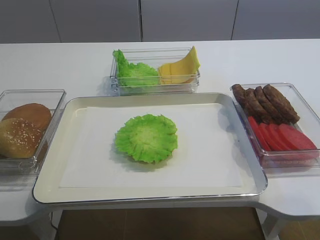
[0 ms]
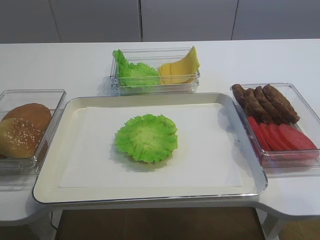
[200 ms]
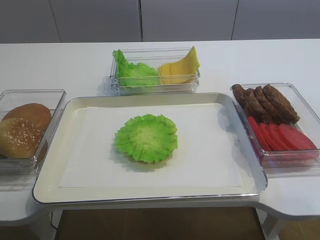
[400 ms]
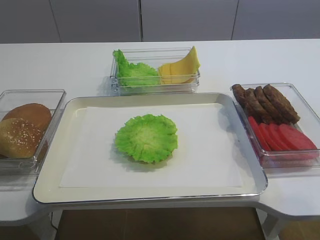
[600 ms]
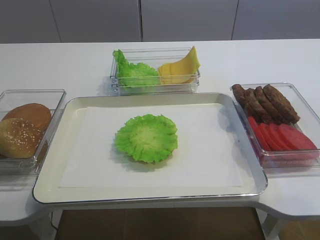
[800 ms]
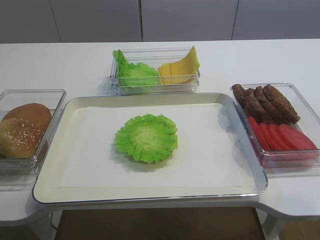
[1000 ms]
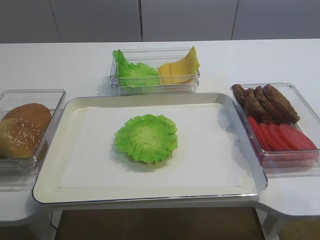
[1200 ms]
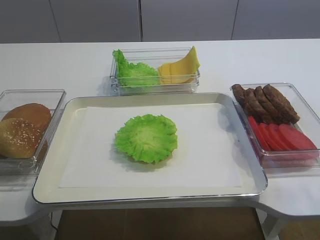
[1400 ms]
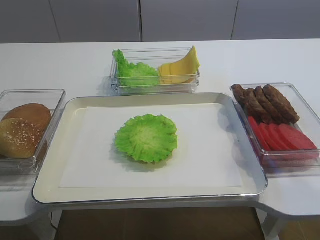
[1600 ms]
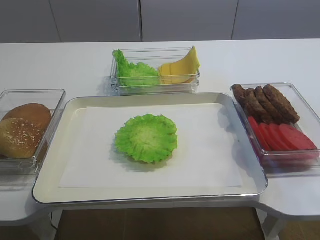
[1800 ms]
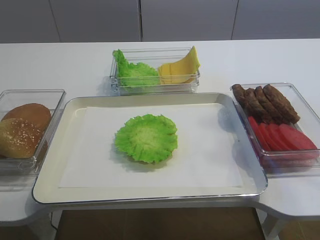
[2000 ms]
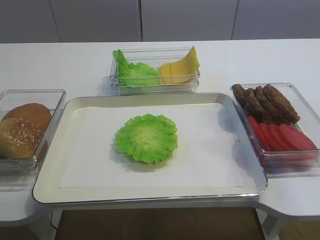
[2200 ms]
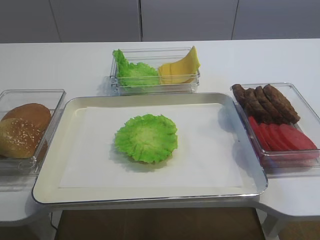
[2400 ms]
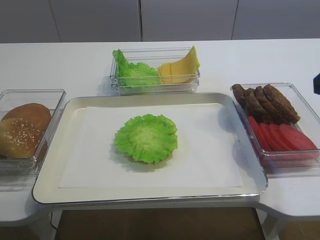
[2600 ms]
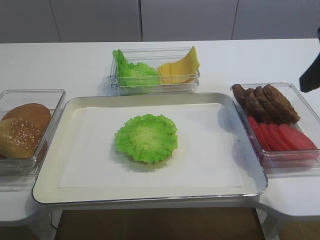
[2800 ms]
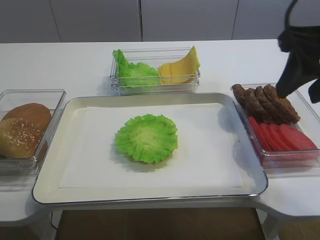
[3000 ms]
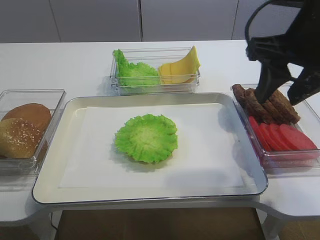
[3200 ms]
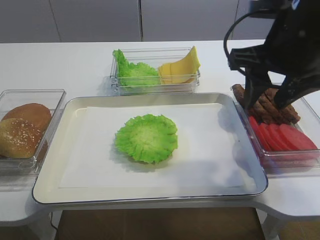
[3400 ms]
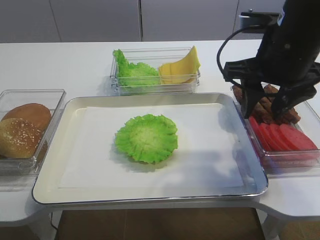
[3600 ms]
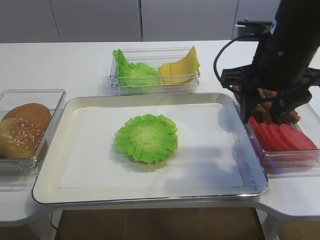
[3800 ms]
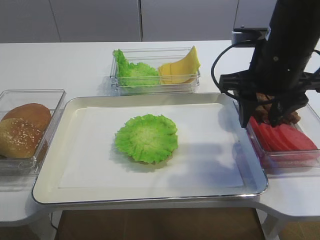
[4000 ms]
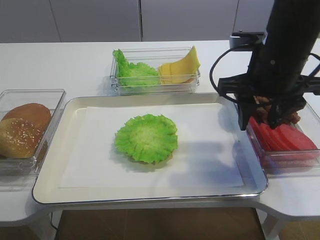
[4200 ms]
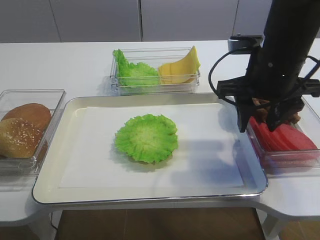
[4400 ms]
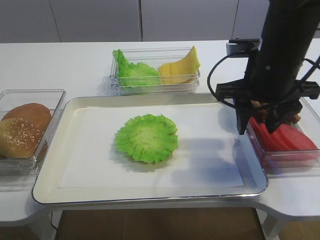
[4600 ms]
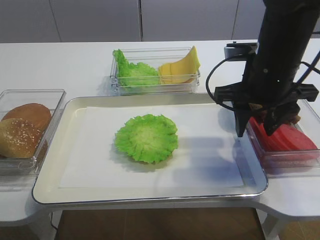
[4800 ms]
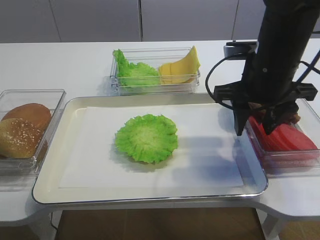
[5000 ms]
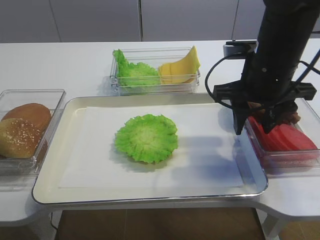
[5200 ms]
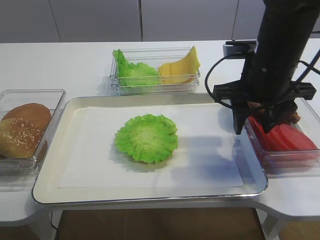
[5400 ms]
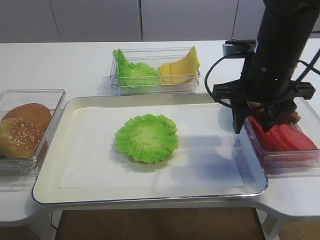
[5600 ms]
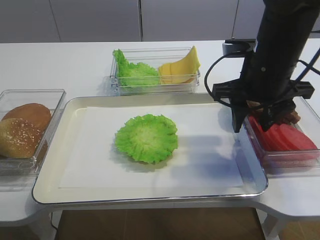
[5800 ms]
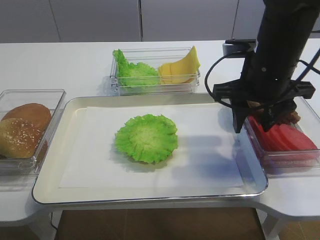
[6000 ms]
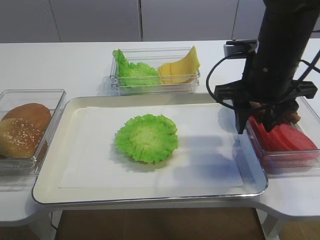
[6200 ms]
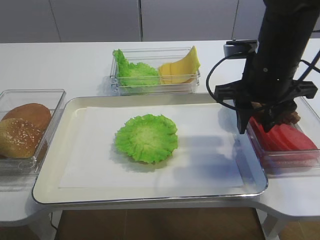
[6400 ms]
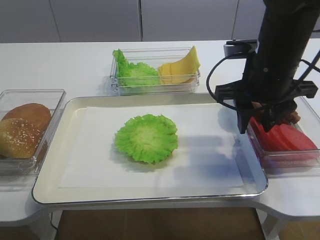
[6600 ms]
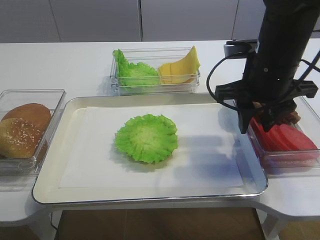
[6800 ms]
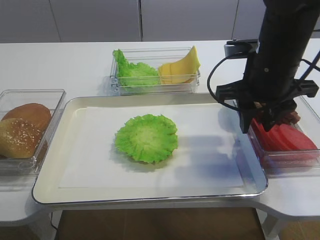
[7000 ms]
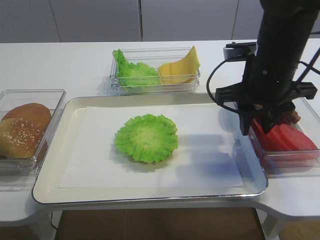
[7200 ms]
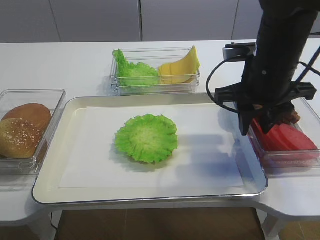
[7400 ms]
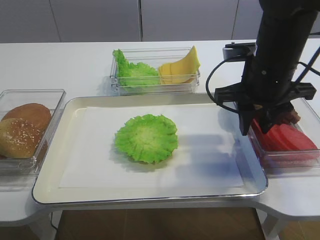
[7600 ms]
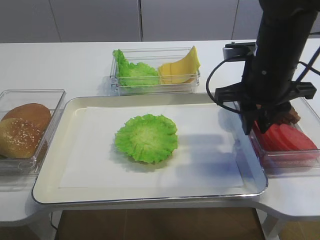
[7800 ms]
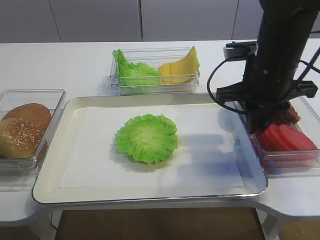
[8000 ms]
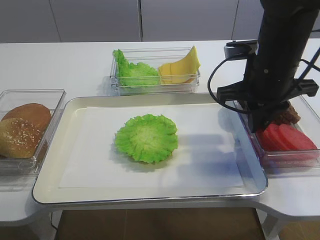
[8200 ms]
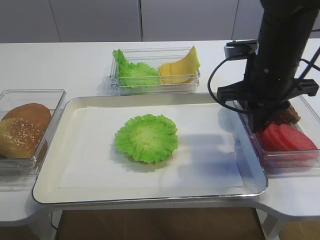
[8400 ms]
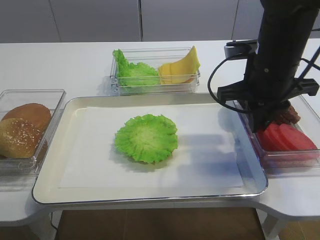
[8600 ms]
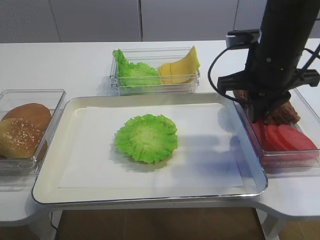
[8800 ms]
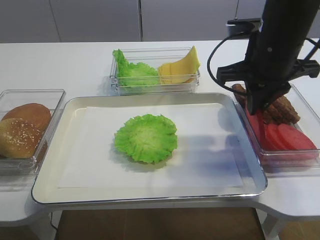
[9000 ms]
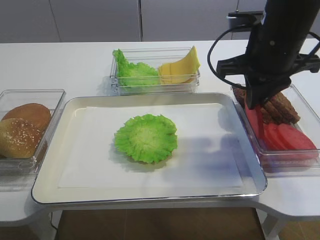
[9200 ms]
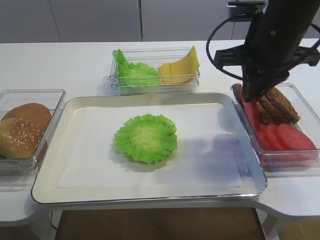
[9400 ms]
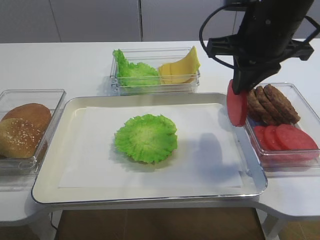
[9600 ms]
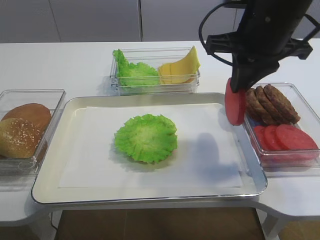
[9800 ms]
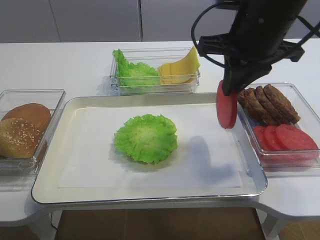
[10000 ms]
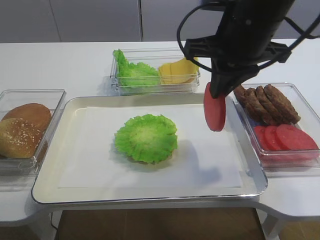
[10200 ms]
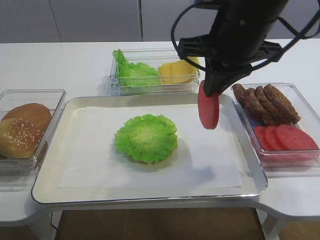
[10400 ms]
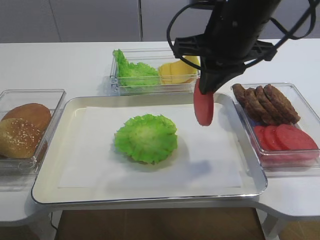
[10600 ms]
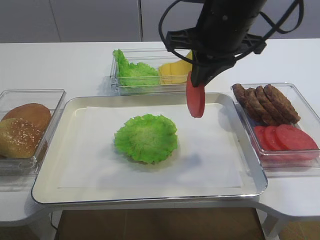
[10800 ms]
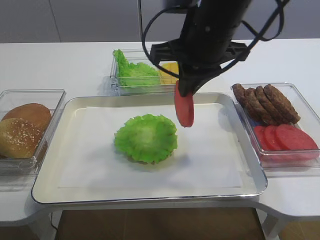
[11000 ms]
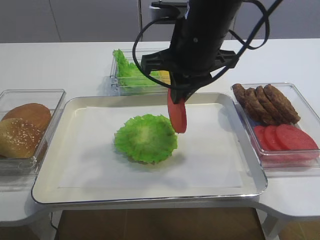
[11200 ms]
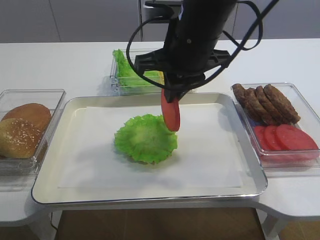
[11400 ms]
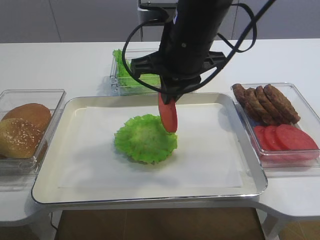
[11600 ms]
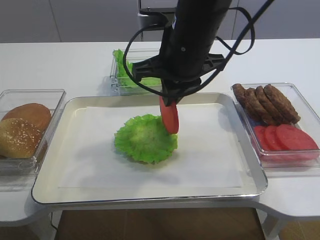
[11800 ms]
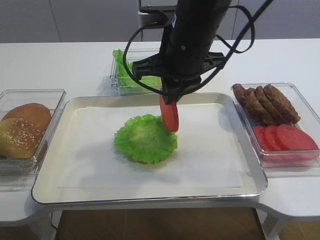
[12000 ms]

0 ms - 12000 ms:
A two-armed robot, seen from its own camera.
Step, 0 ms - 9400 ms: Pick up the tomato slice with the right gripper.
1600 ms - 3000 ms: The right gripper is displaced forward by some 20 cm.
3000 ms - 4400 ms: The right gripper travels downward, forward and to the left by about 10 cm.
4400 ms - 6000 ms: Neither gripper changes place.
6000 ms - 7600 ms: Both grippers stay put.
7600 ms - 9000 ms: The right gripper closes.
9000 ms - 10400 ms: The right gripper shifts by about 5 cm.
10400 ms - 12000 ms: The right gripper goes about 5 cm to the left.

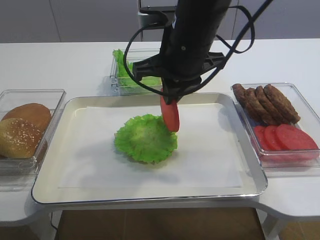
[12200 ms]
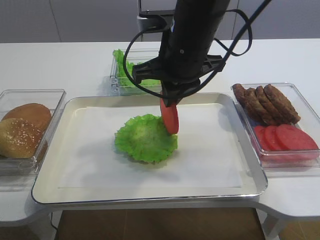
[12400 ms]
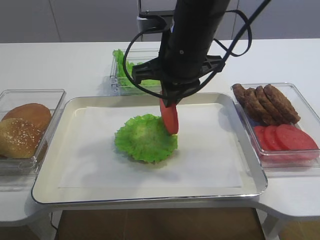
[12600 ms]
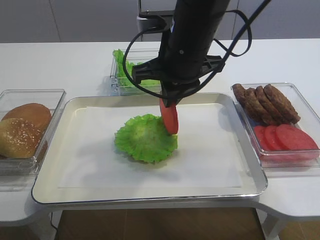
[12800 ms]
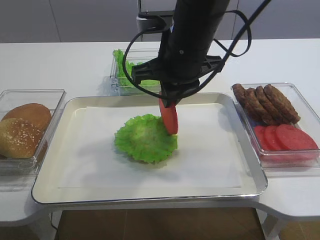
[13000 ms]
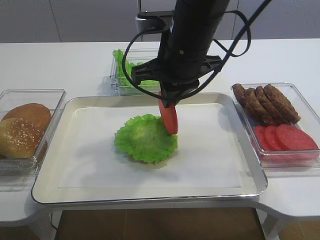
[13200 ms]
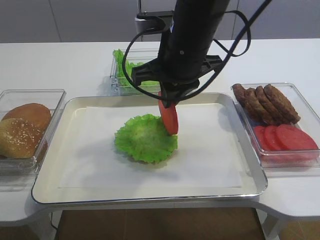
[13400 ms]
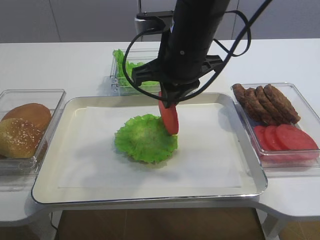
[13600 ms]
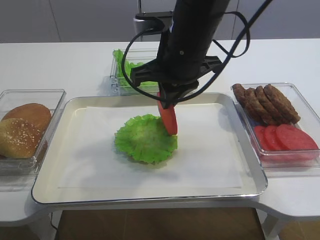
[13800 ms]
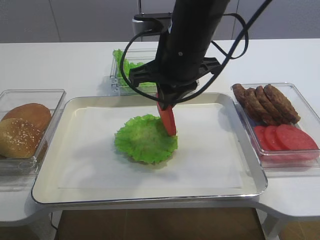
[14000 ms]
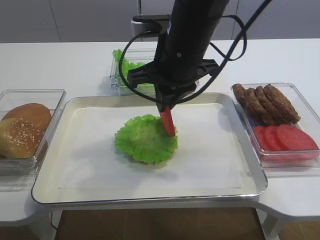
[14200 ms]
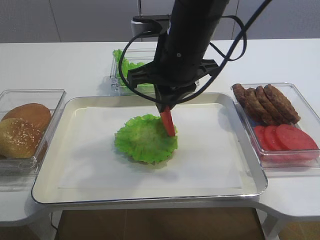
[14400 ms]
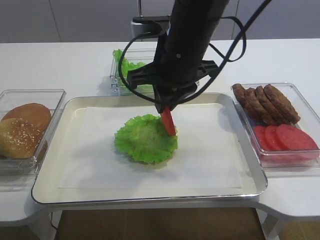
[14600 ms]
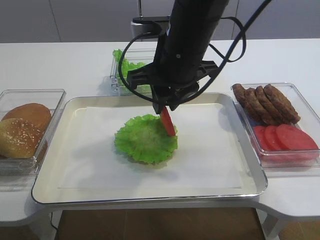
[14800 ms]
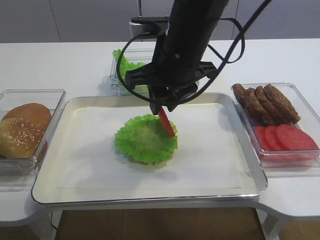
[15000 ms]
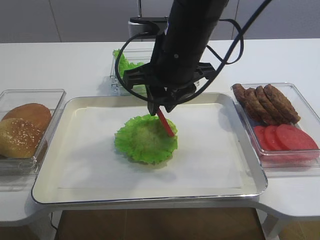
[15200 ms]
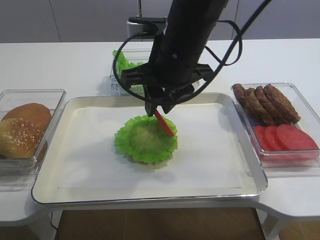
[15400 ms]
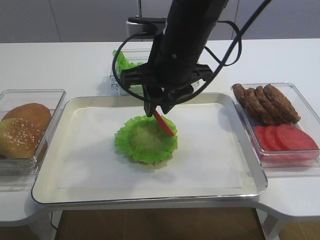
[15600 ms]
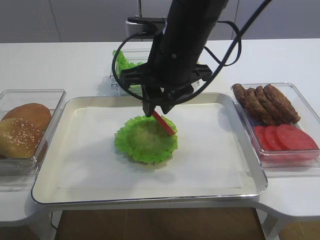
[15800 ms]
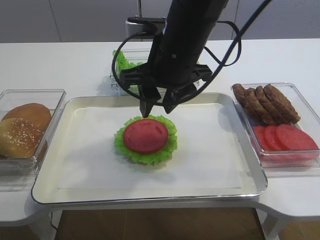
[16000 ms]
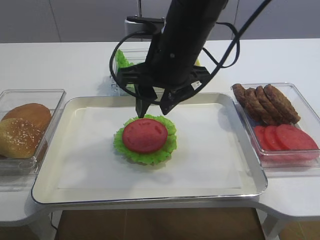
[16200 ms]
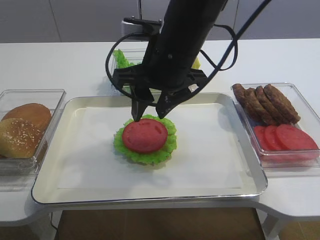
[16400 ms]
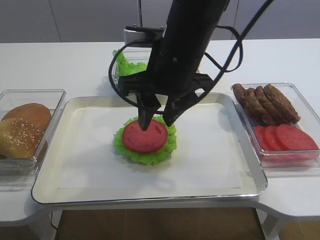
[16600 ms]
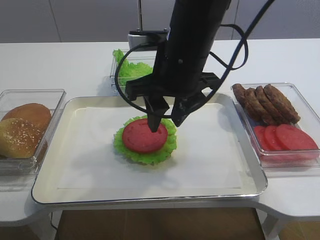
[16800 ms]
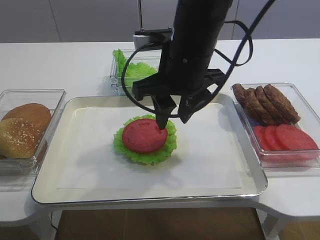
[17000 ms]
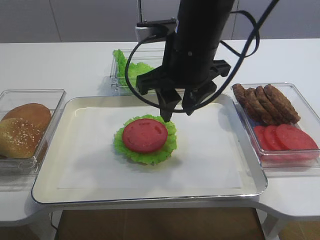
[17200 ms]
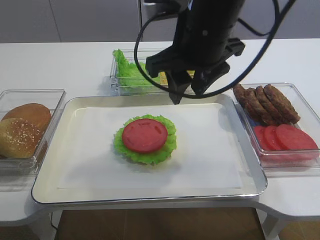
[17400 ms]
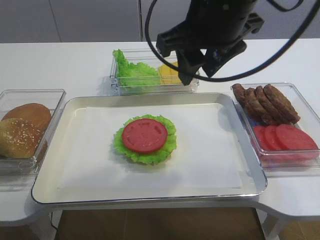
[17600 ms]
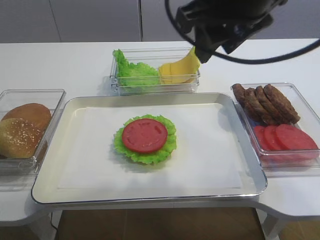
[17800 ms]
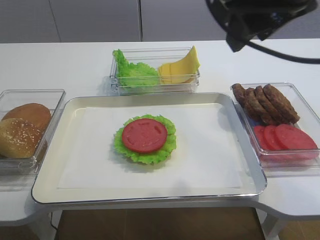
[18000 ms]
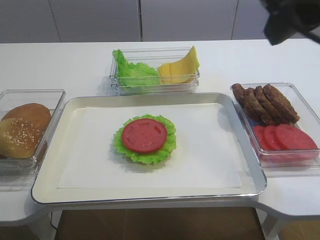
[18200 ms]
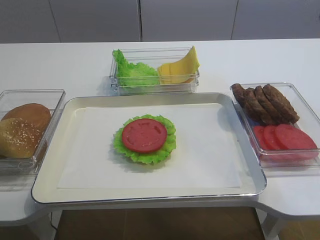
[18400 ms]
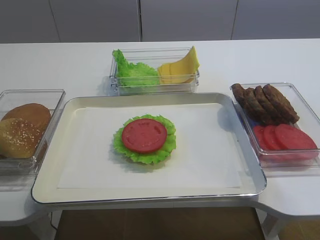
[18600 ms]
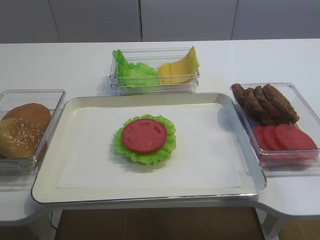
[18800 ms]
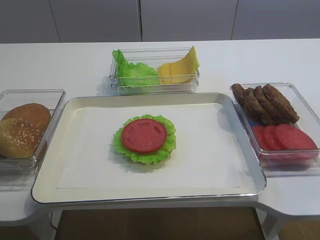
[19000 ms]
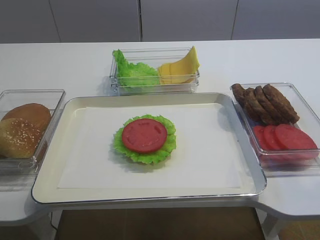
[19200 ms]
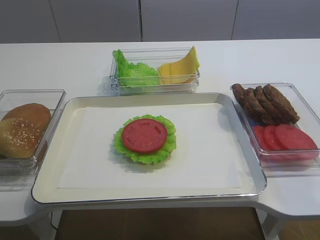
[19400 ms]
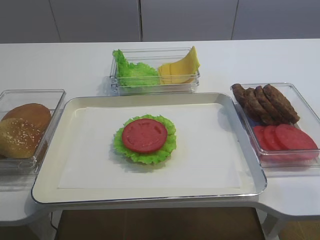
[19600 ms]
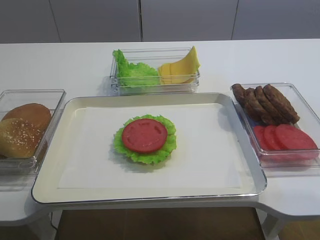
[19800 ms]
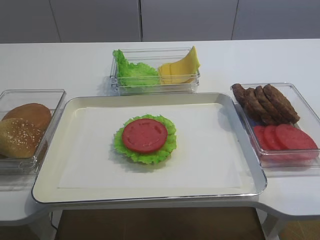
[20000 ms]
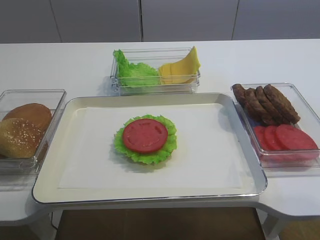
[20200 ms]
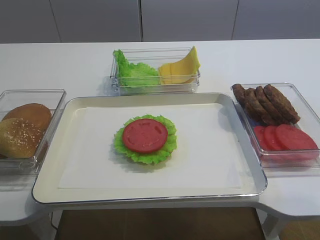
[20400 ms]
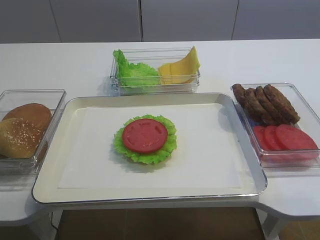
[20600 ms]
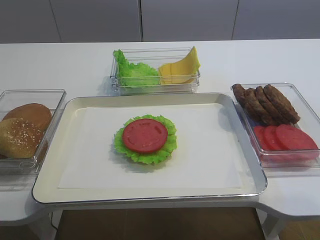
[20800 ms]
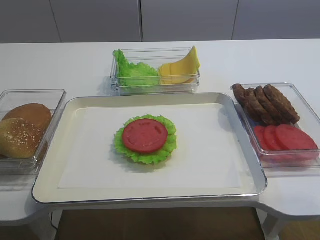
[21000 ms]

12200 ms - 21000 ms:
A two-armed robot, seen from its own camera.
Step, 12200 ms - 16600 ms: Place the tomato slice on the lettuce leaf with the right gripper.
12200 ms - 13600 ms: Neither gripper changes place.
13600 ms - 15200 ms: The right gripper opens its fingers.
15200 ms - 16600 ms: The right gripper opens.
16600 ms - 18000 ms: The right gripper heads upward, to the right and backward, covering some 15 cm.
18000 ms - 19600 ms: The right gripper goes roughly 30 cm backward, to the right and downward.

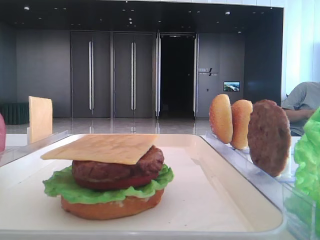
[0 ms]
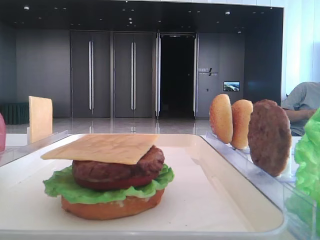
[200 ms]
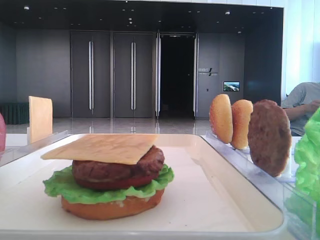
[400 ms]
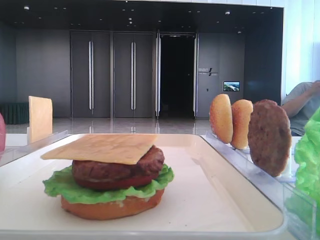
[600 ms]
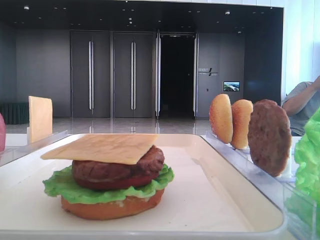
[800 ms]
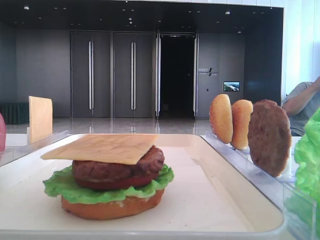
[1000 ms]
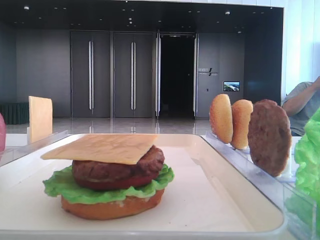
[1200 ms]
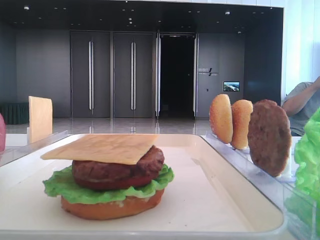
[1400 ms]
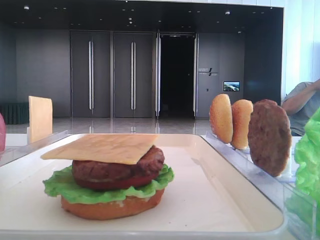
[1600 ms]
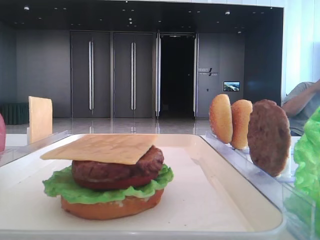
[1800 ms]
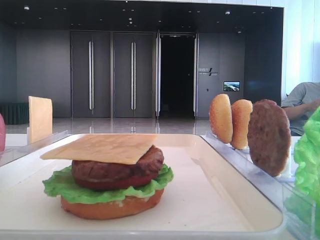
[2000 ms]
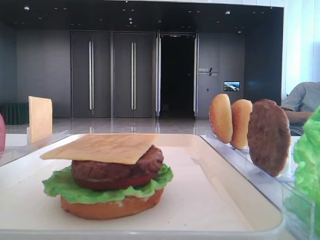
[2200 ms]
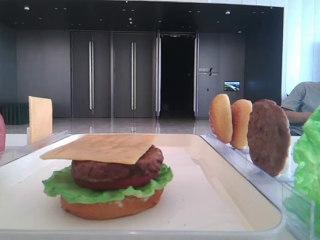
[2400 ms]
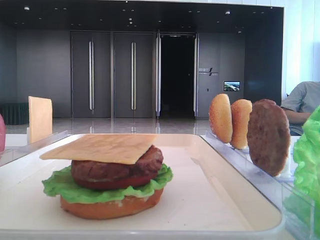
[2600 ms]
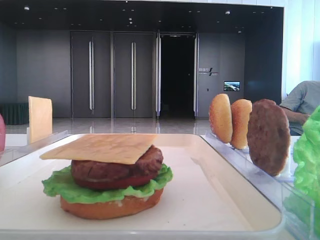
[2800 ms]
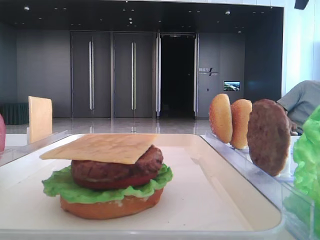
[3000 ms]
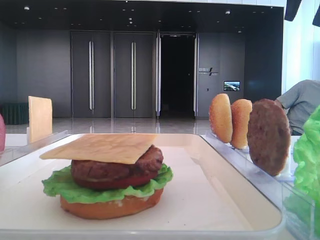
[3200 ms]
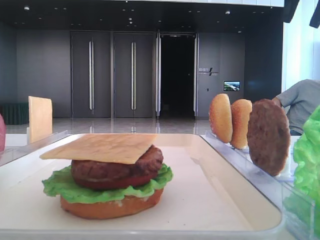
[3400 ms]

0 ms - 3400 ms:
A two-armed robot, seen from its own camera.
1600 ms - 3400 ms: The right gripper shifts about 35 cm forward, and opens.
